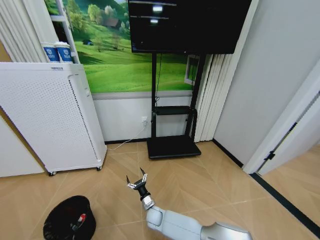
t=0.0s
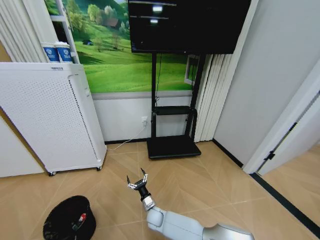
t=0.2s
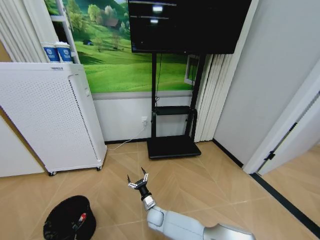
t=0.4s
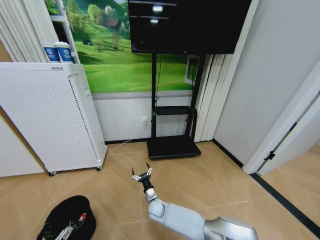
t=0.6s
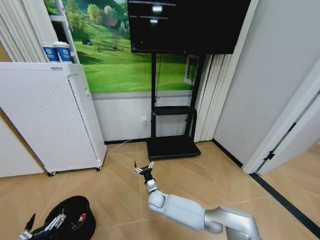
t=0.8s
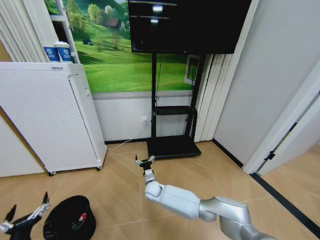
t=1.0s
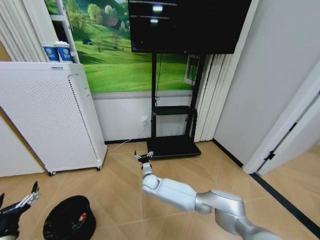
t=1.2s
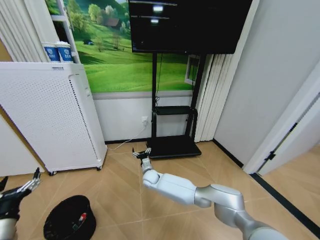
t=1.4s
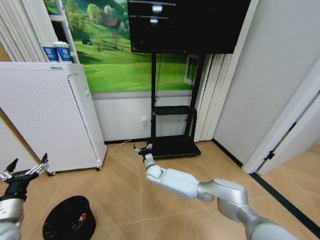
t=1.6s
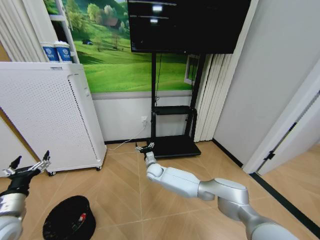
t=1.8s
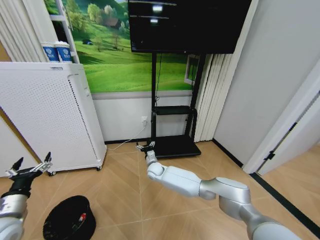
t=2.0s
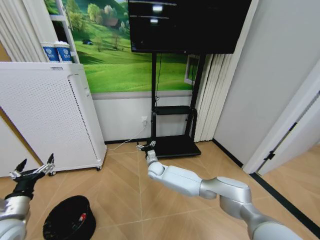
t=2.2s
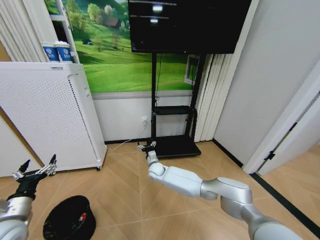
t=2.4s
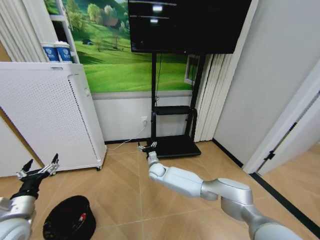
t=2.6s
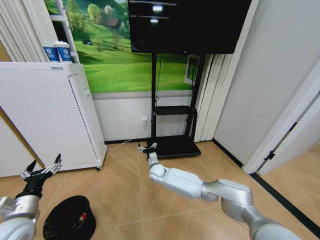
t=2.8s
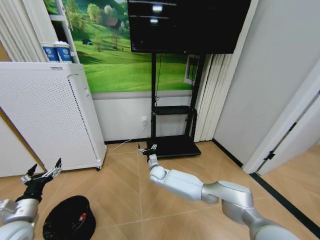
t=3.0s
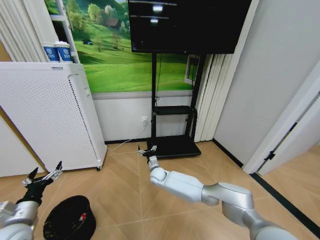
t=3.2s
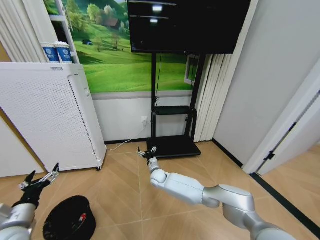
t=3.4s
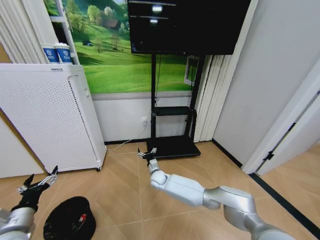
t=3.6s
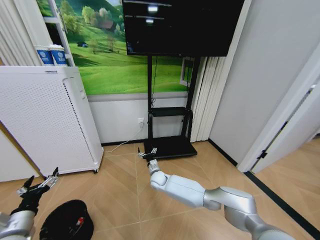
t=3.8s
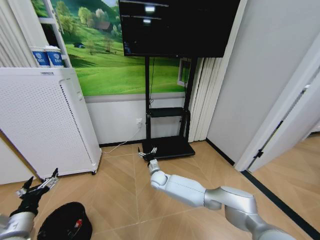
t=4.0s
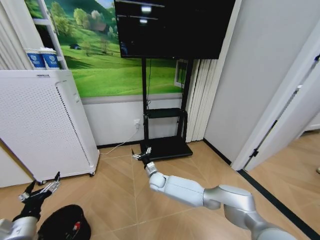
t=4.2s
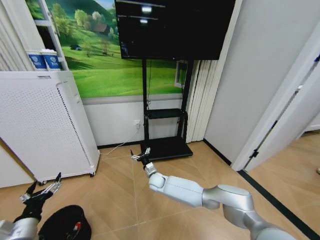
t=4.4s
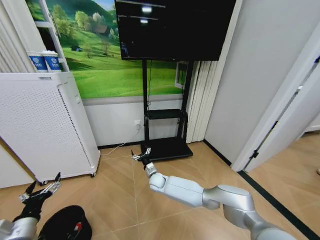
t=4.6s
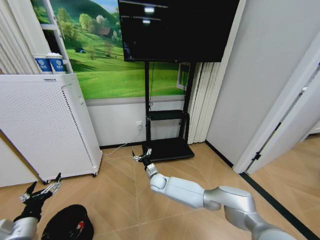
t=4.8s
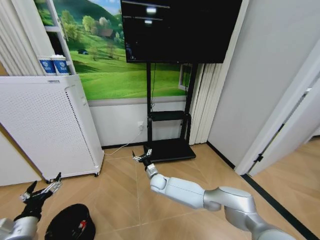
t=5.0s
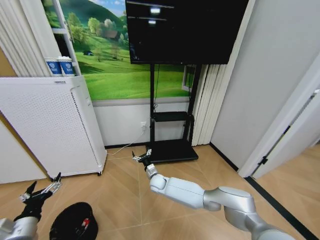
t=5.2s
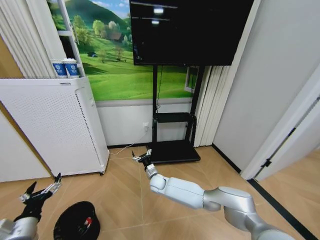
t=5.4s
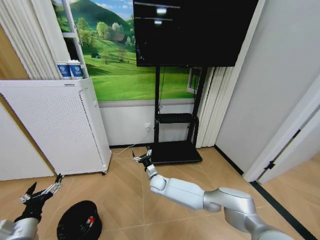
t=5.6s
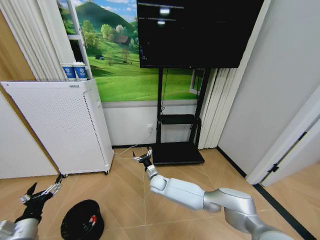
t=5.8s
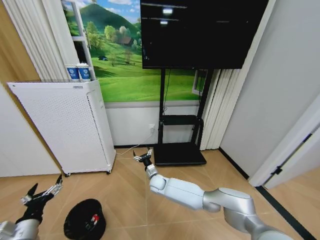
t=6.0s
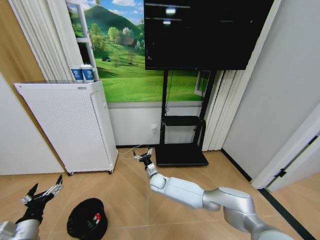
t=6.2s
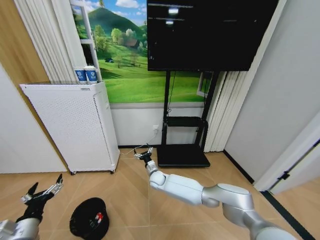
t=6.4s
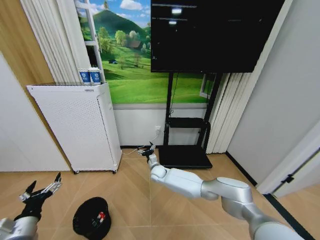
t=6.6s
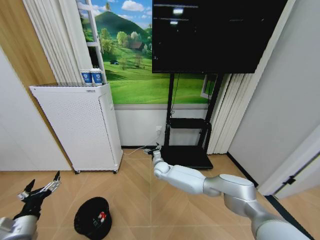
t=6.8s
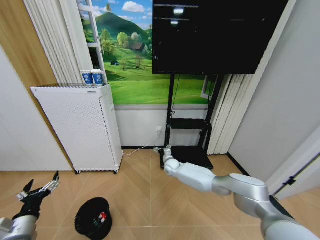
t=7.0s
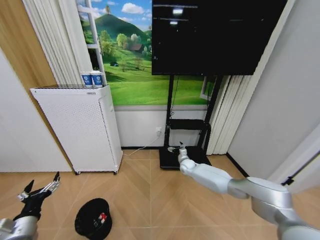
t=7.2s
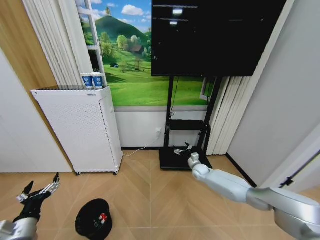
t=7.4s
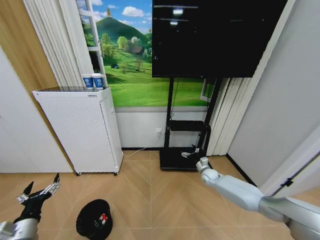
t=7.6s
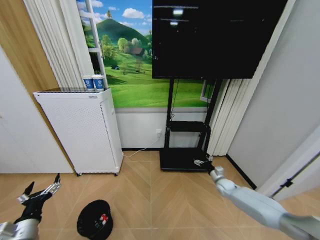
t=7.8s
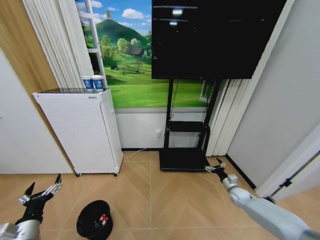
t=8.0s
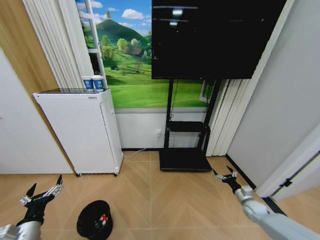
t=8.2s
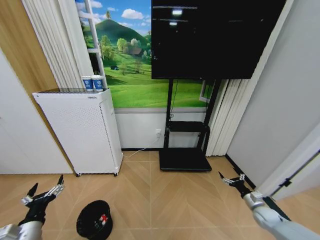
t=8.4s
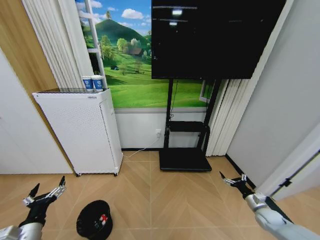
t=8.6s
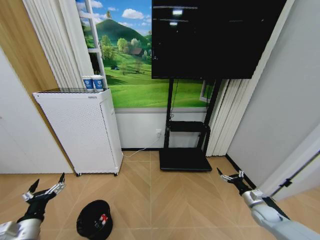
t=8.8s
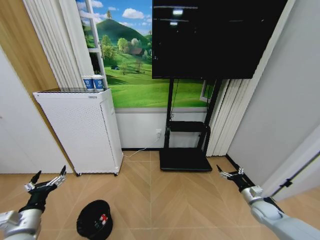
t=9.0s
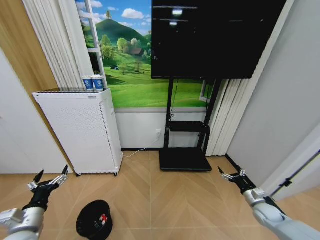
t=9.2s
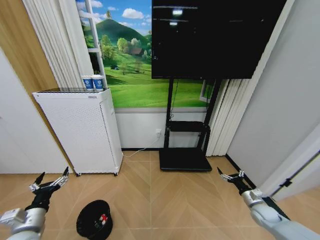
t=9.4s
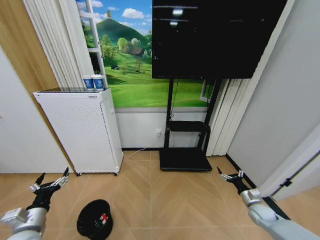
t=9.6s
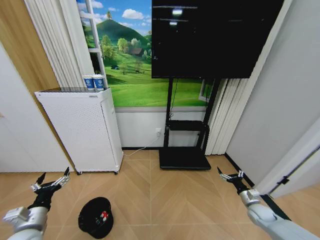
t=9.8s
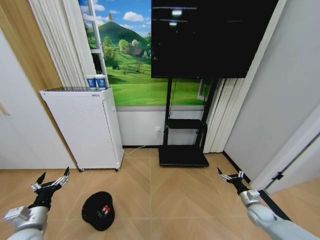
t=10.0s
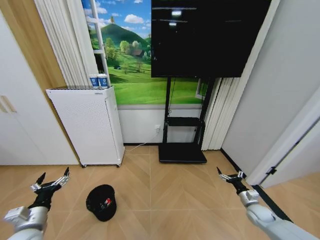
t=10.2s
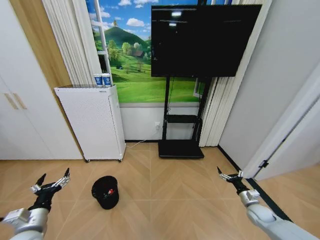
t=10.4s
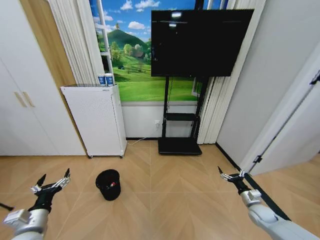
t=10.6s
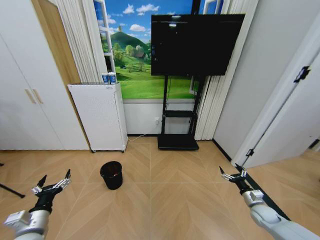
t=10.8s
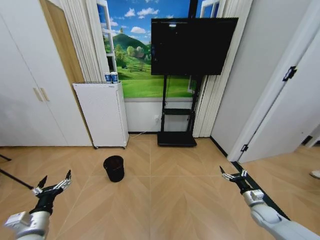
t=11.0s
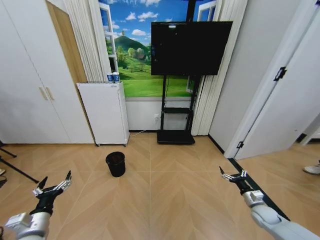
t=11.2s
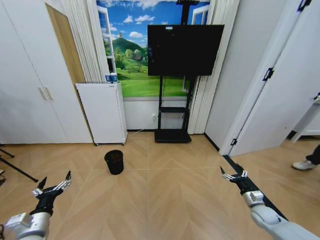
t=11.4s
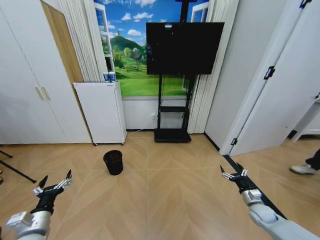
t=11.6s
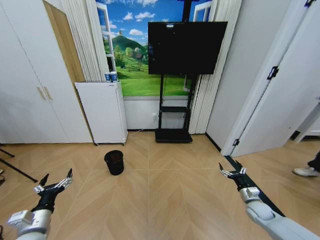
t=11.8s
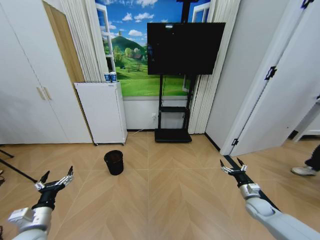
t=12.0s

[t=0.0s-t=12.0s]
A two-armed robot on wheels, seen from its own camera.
Task of the whole recording: Pick up the trash bin and place the garbage on the floor into it.
t=0.0s to t=1.6s: The left gripper heads upward and forward, covering about 35 cm. The right gripper moves upward and forward, some 20 cm.
t=1.6s to t=3.0s: The grippers make only small movements.
t=3.0s to t=4.4s: The left gripper shifts by some 5 cm.
t=6.0s to t=7.6s: The right gripper is displaced to the right by some 35 cm.
t=7.6s to t=9.0s: The right gripper shifts approximately 25 cm backward and to the right.

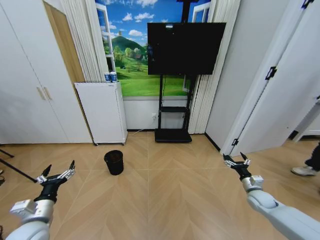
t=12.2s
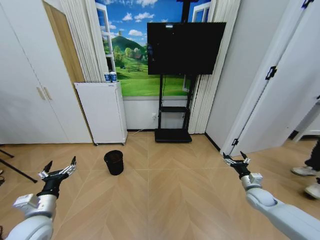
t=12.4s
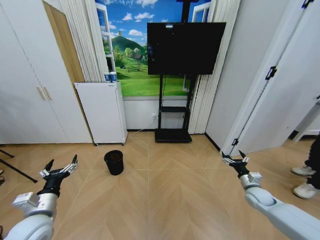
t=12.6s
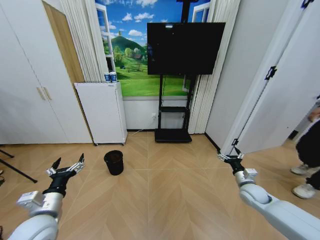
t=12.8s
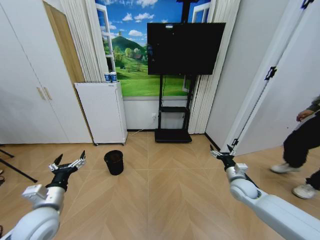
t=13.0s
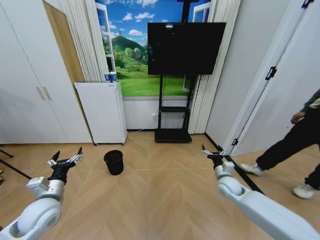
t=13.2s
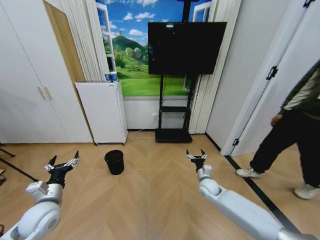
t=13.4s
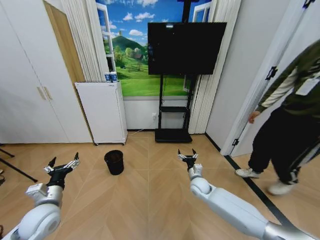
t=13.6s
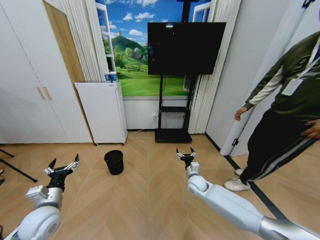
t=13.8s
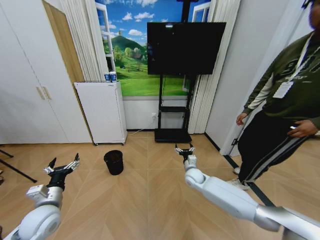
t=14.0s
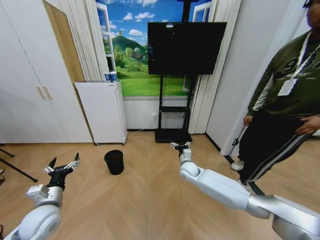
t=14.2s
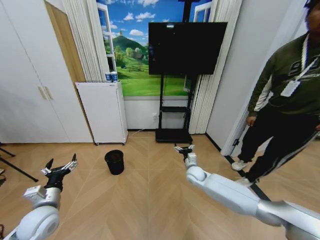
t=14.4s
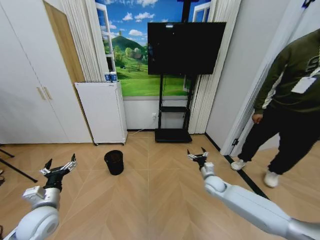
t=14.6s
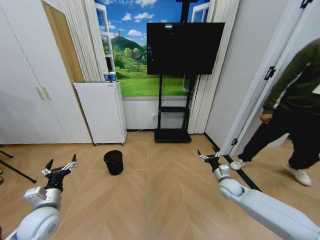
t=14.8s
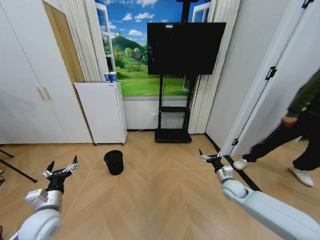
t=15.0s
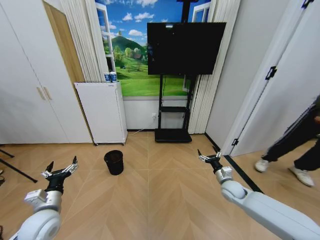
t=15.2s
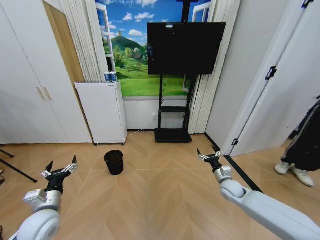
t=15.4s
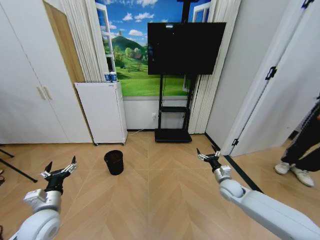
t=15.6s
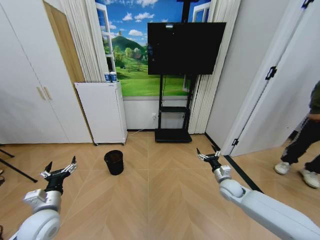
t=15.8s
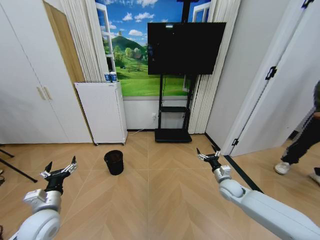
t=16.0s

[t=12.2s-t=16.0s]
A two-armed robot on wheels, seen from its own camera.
Task of the whole recording: Pick up the trash bin and place the garbage on the floor into it.
t=12.2s to t=13.4s: The right gripper is displaced to the left by about 20 cm. Meanwhile the left gripper ends up roughly 5 cm from where it was.
t=13.4s to t=14.8s: The right gripper moves to the right, roughly 10 cm.
t=14.8s to t=16.0s: The two grippers keep their place.

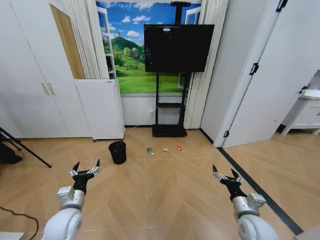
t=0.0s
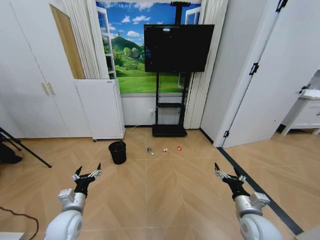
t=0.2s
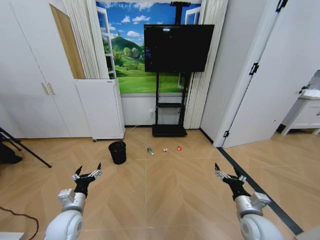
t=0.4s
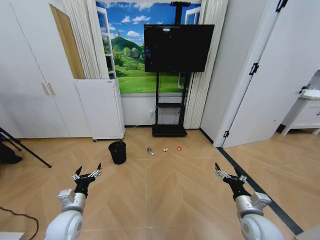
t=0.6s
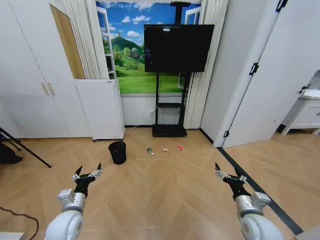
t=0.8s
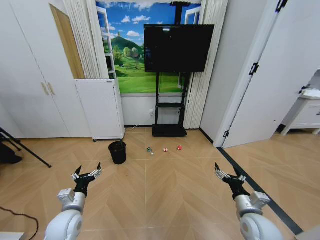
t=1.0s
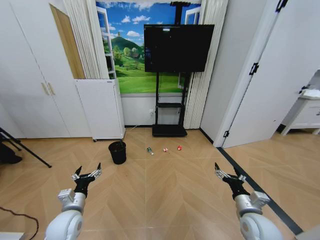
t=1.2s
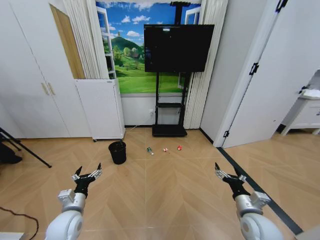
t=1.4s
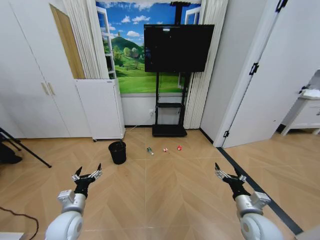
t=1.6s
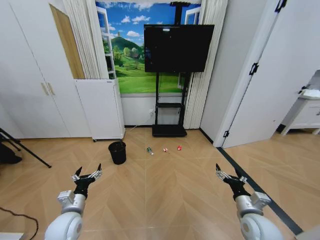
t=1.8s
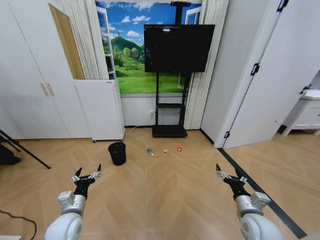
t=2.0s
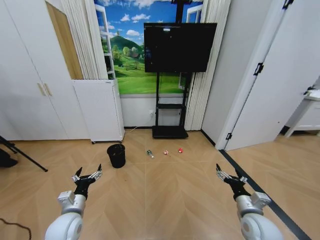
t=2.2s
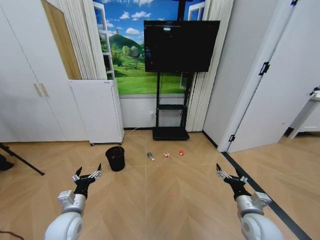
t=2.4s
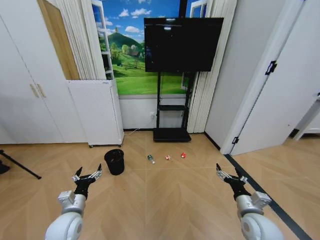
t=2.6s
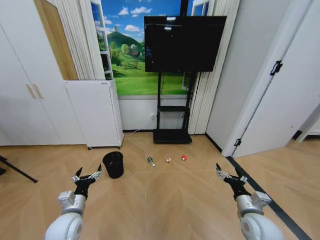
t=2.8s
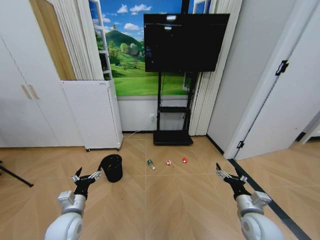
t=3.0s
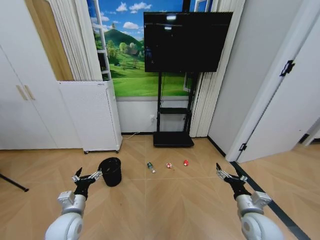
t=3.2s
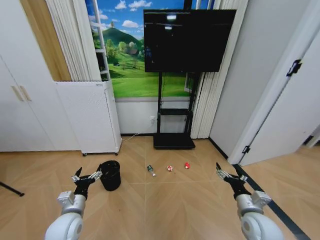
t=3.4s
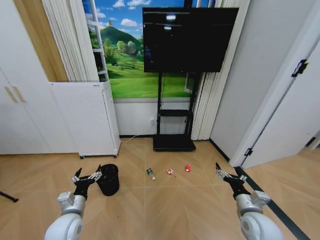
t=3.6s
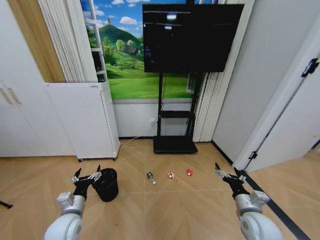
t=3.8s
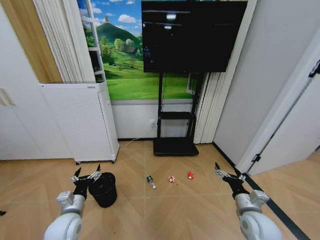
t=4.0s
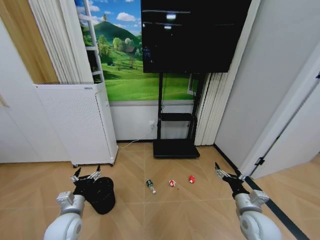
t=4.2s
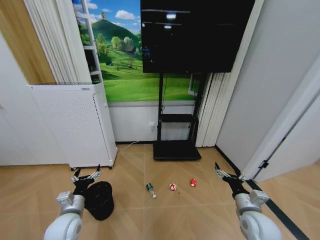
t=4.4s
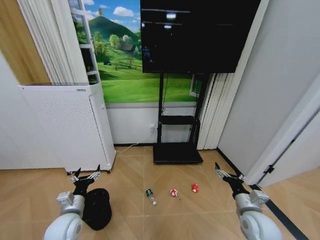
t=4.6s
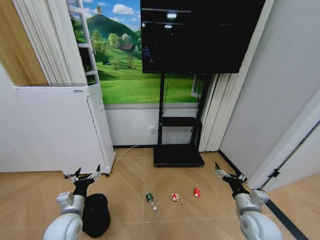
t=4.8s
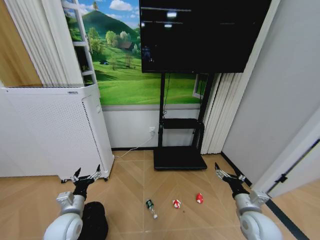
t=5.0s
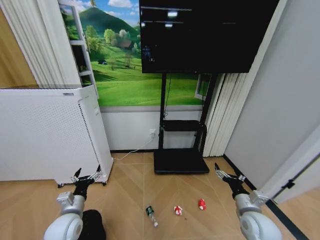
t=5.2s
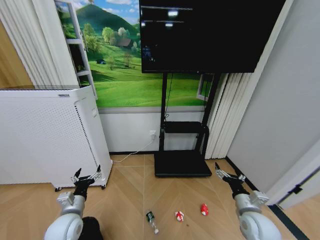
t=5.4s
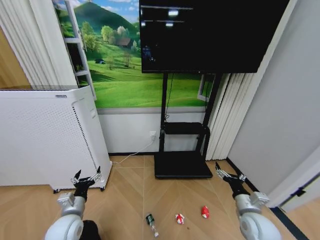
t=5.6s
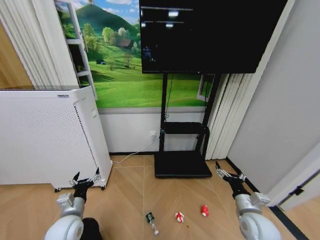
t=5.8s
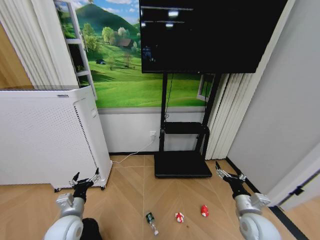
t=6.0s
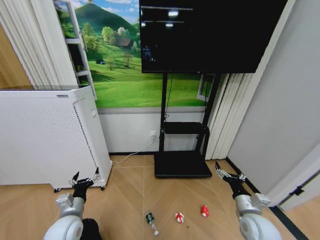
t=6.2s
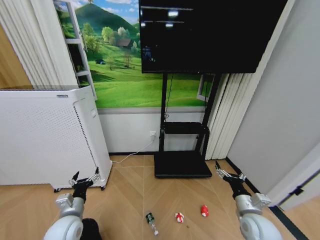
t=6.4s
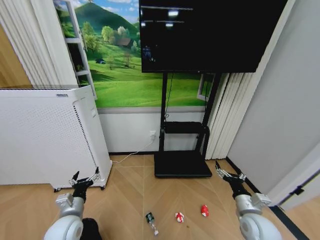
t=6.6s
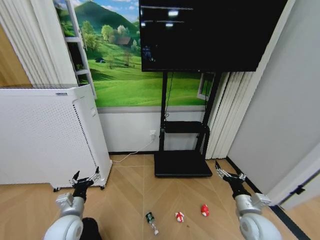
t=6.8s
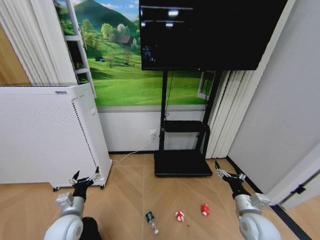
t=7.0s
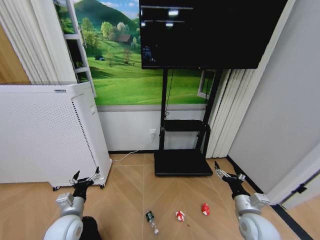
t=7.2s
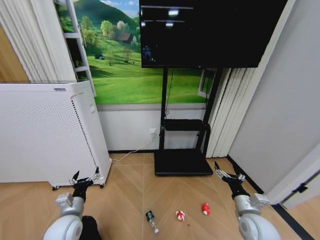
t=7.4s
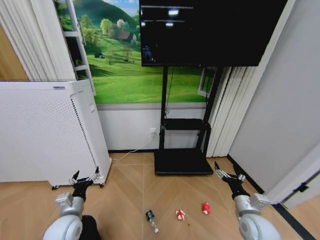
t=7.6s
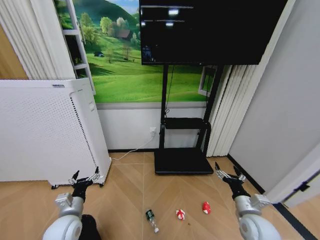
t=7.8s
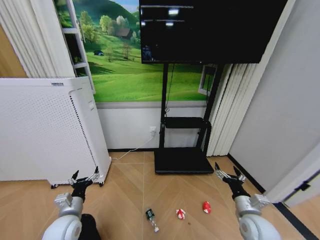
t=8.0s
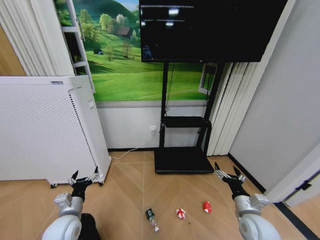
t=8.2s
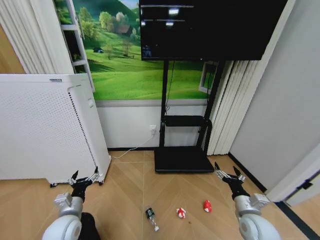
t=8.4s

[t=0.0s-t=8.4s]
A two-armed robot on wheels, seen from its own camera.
Task of the whole recording: Pick up the trash bin and place the garbage on the floor into it.
t=5.6s to t=8.4s: Both grippers stay about where they are.
